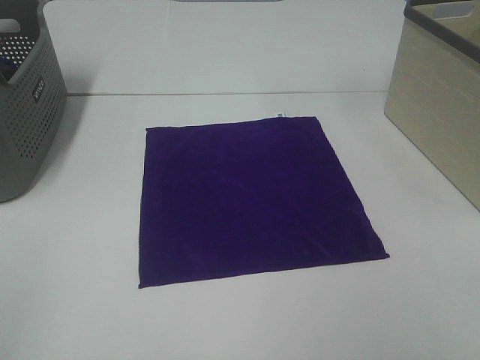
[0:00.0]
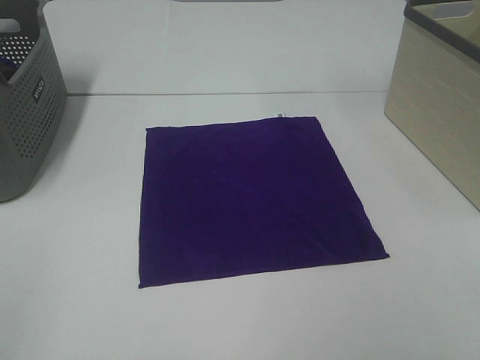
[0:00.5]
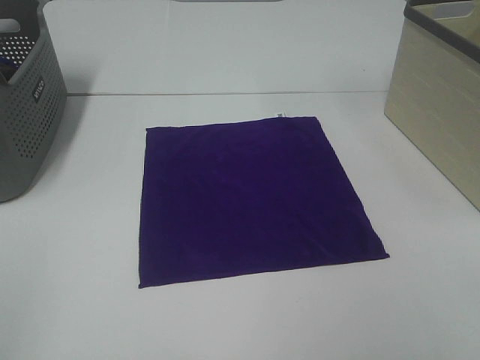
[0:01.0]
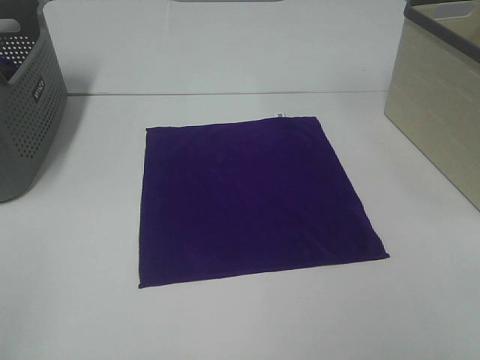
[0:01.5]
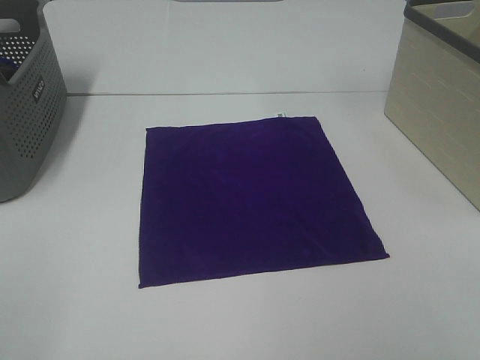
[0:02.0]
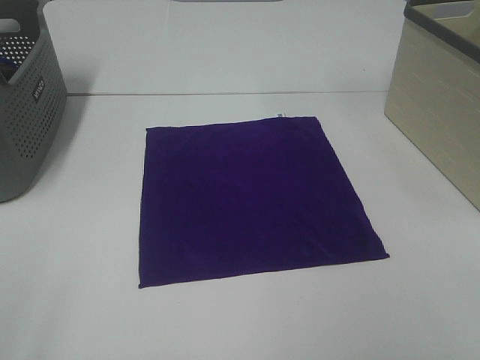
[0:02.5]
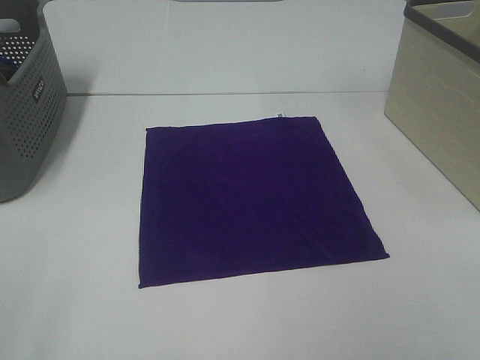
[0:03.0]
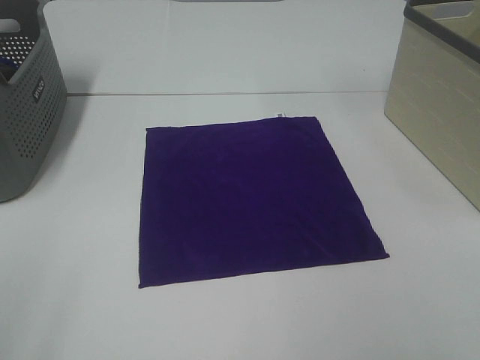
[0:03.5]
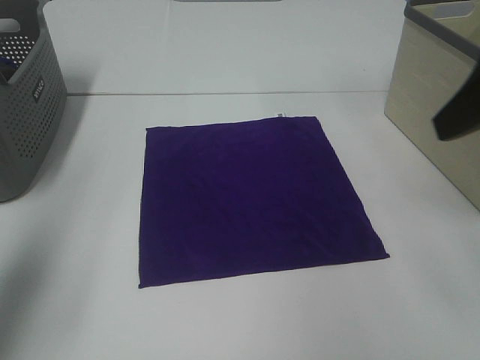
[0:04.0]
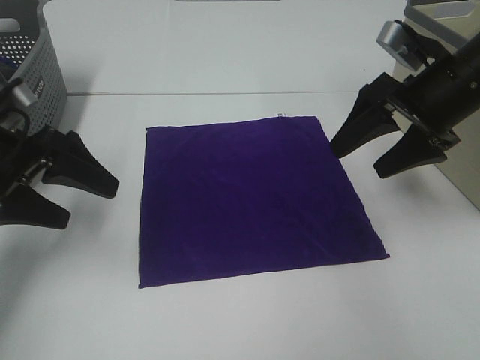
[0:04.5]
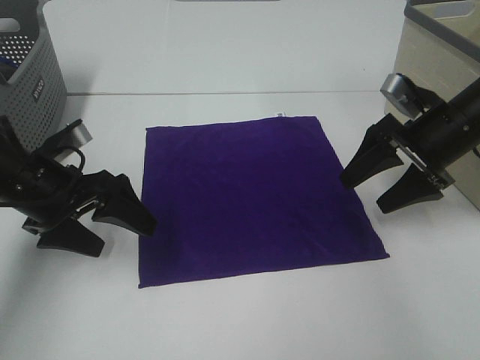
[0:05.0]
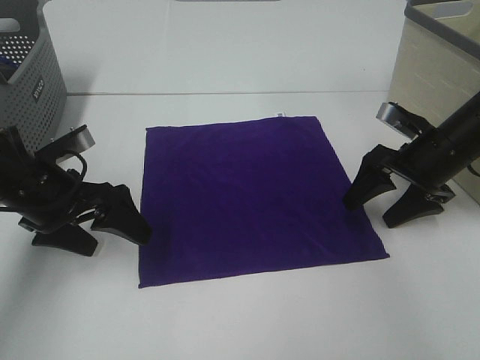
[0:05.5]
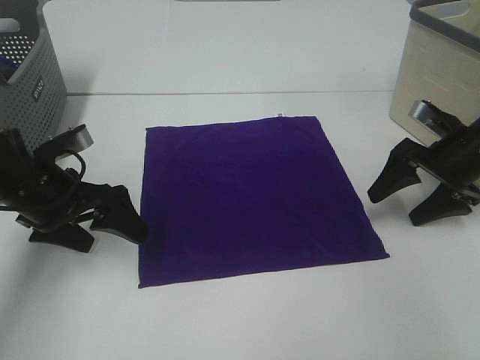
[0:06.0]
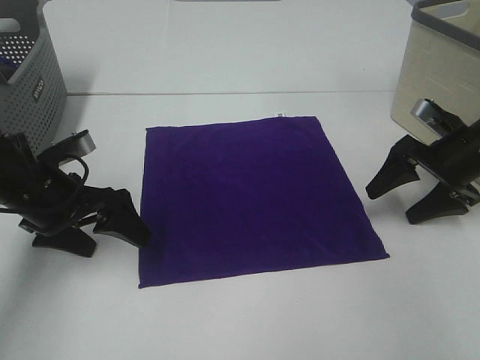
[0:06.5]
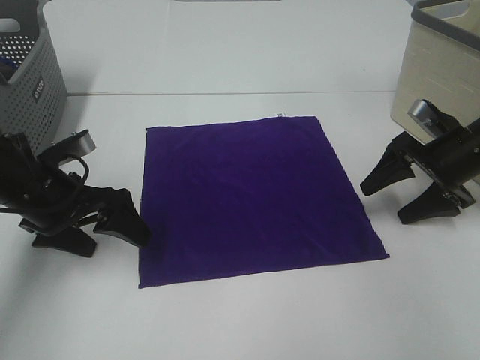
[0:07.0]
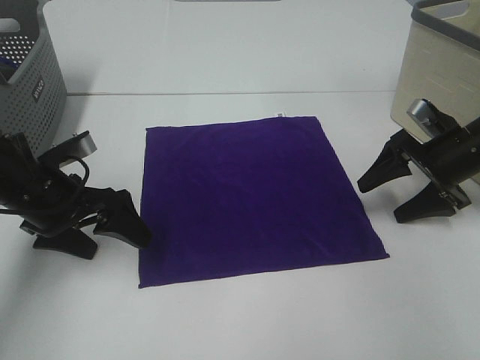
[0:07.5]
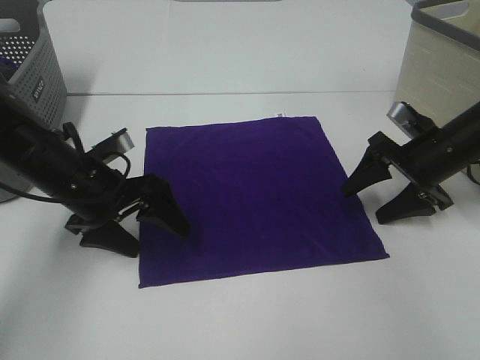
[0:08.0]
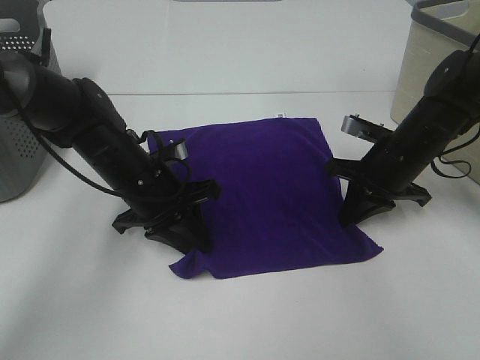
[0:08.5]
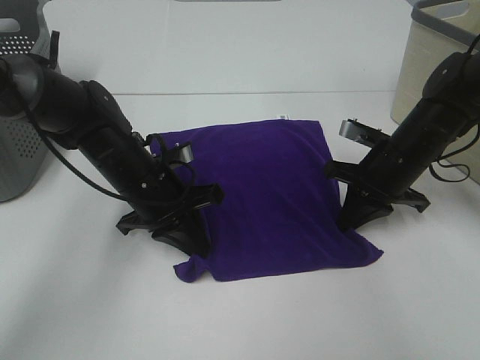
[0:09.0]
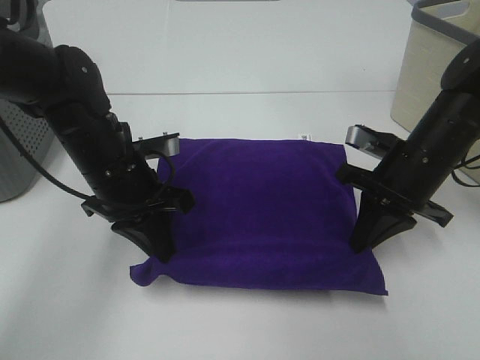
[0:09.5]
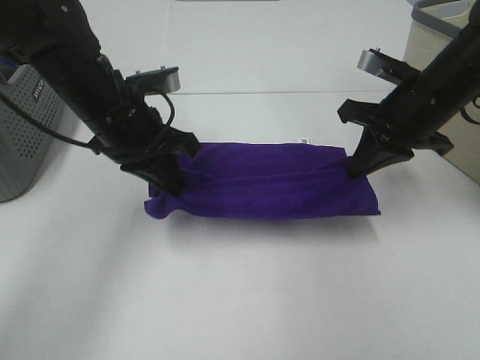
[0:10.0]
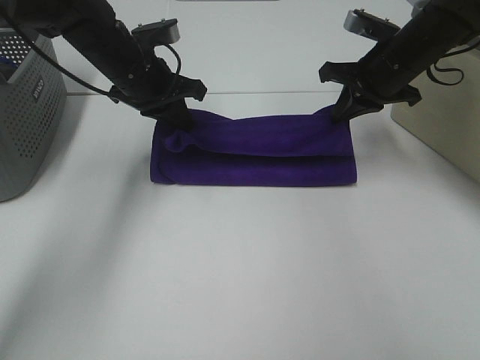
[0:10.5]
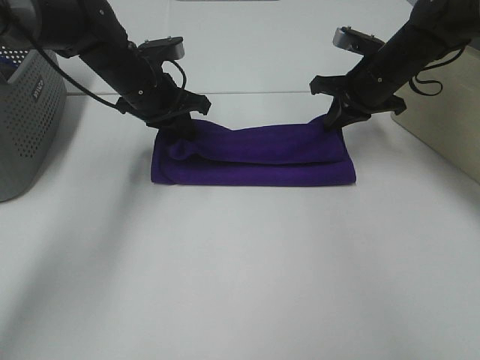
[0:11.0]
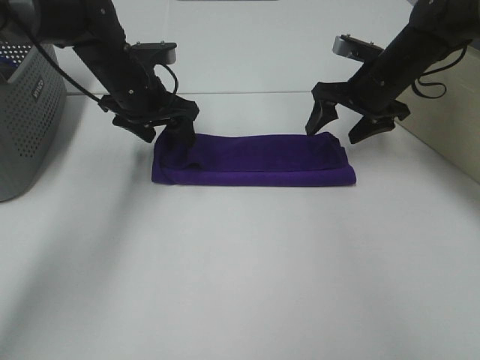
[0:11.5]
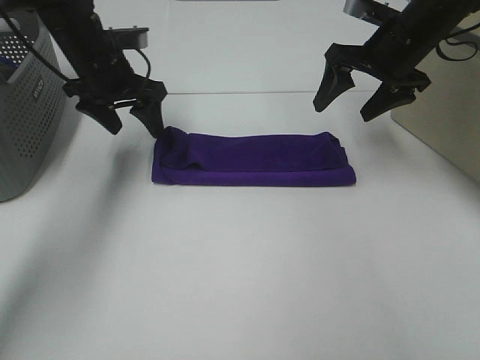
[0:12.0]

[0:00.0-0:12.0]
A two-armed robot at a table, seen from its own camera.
Task of the whole recording: Fold towels.
Step, 0:00.0 to 0:08.5: Left hand: grab the bottom left corner of purple towel.
Step, 0:00.0 to 0:08.5: Right hand: grab the bottom right corner of purple towel.
Step, 0:09.0 to 0:11.0: Left hand: fold the purple towel up.
Step, 0:09.0 to 0:11.0: Right hand: fold the purple towel up.
0:02.0 to 0:04.0: Both grippers travel together forward, about 20 cm.
0:04.0 to 0:06.0: The right gripper moves downward and forward, about 25 cm. Meanwhile the left gripper is displaced downward, forward and to the right by approximately 20 cm.
0:06.0 to 0:08.0: The left gripper ends up approximately 5 cm from where it was.
0:08.0 to 0:10.0: The right gripper shifts approximately 10 cm upward and to the left, and closes up, while the left gripper shifts some 10 cm upward and to the right, and closes its fingers.
0:10.0 to 0:12.0: The left gripper travels forward and to the left by about 15 cm, and opens its fingers, while the right gripper shifts some 10 cm forward, and opens.

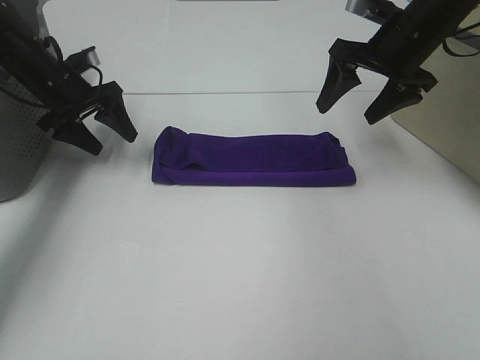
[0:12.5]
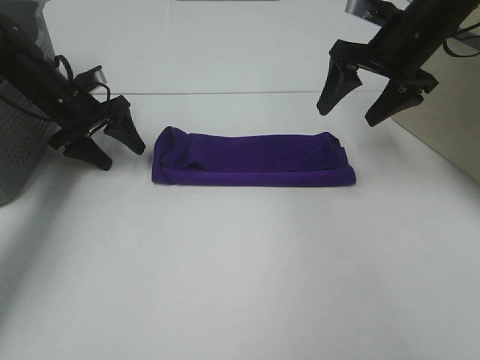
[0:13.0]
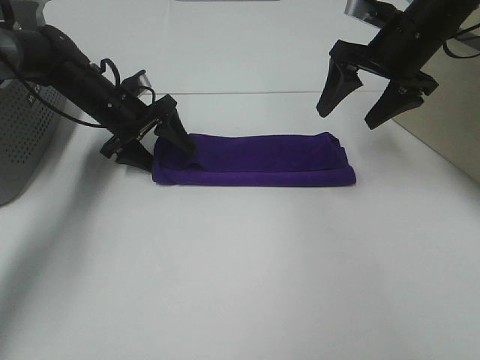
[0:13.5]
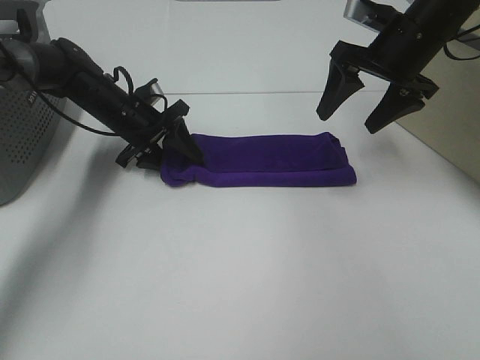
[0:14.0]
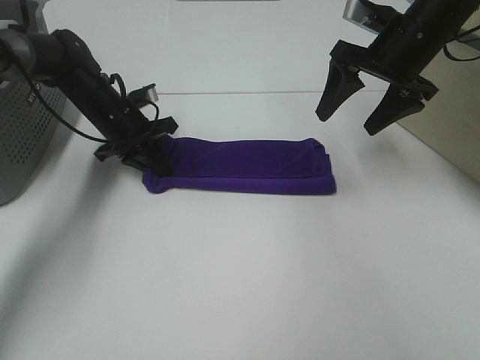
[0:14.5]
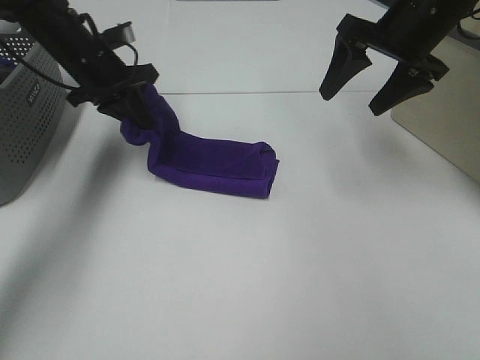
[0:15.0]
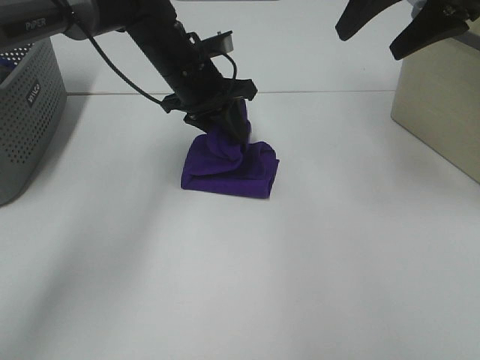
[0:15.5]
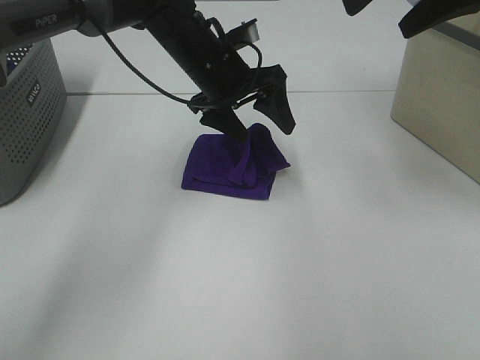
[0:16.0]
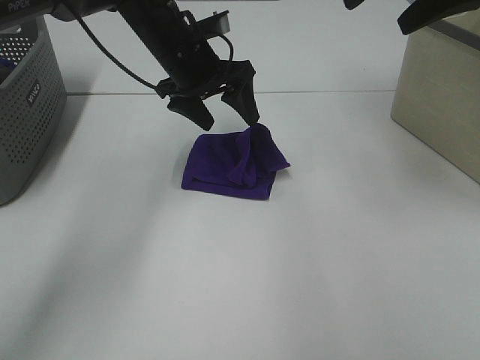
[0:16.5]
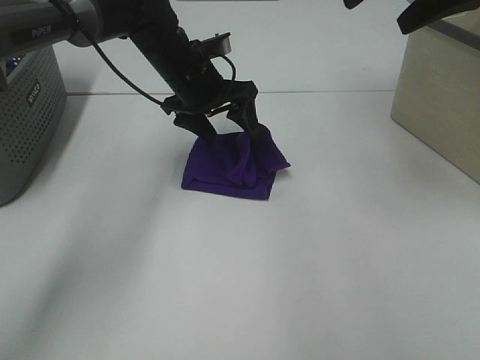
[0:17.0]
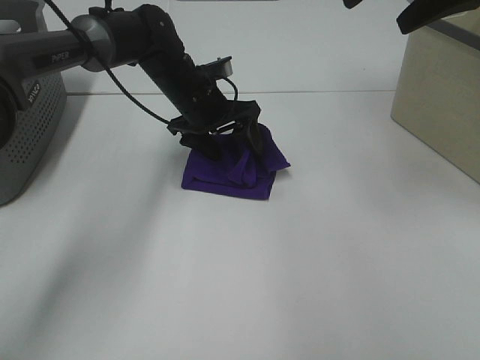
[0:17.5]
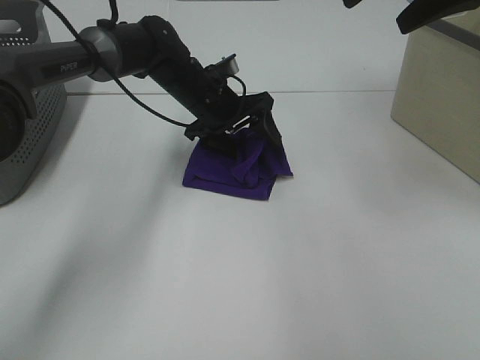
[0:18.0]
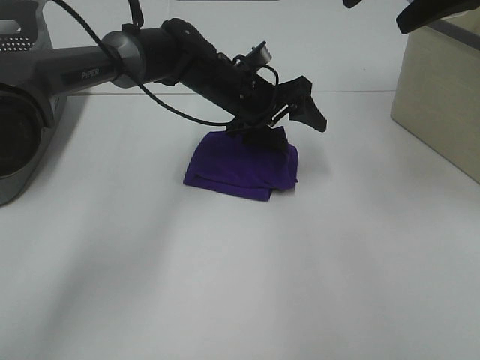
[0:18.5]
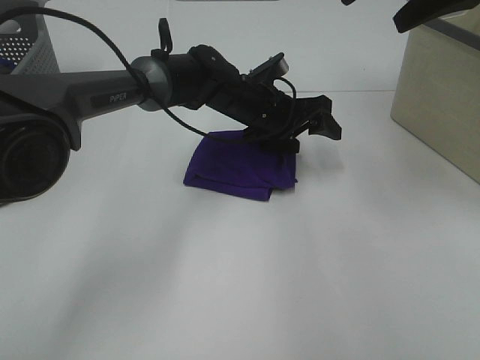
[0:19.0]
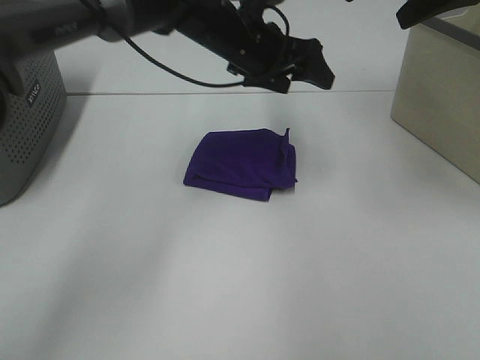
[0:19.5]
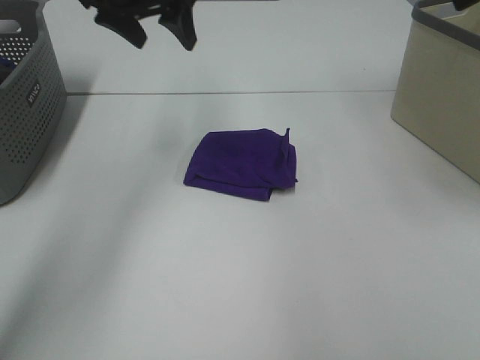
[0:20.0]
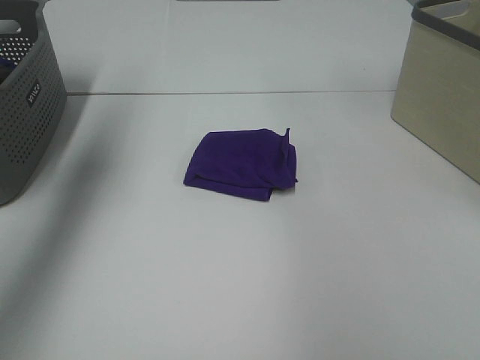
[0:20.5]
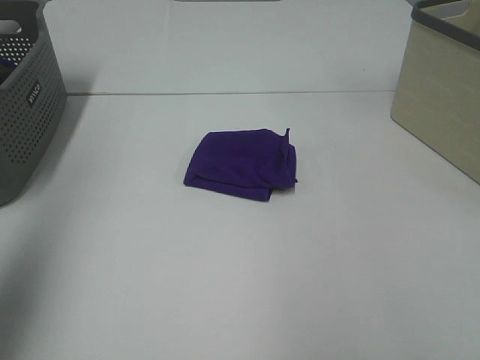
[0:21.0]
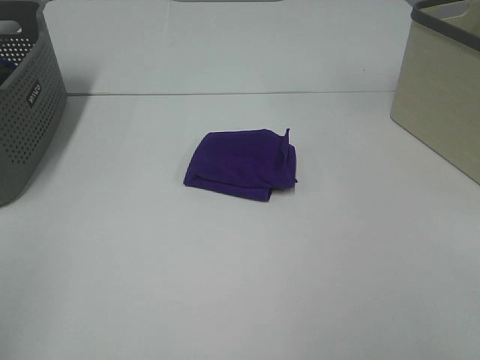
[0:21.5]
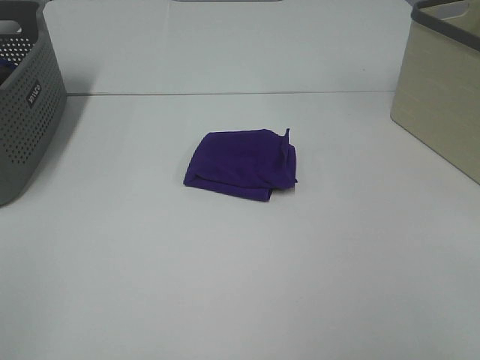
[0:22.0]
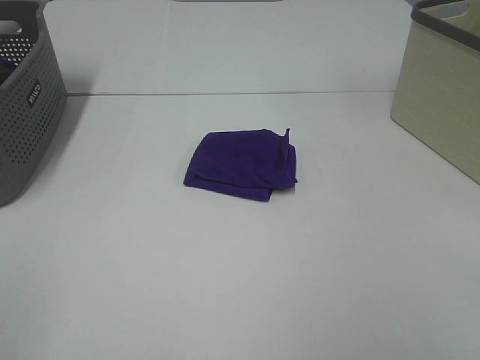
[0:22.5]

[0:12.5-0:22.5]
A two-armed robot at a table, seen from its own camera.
Task of the whole recording: Fold towels.
Step, 0:12.5 to 0:15.5: Left hand: fold the purple towel from left to right.
Step, 0:16.0 to 0:19.0: Left hand: adjust the purple towel.
0:12.5 to 0:14.5: The left gripper travels to the right by roughly 5 cm, and closes its fingers.
0:14.5 to 0:16.5: The right gripper travels upward and backward by roughly 15 cm. Meanwhile the left gripper travels to the right and upward by about 15 cm, and opens up.
0:16.5 to 0:18.5: The left gripper is displaced to the right and downward by about 10 cm.
0:18.5 to 0:20.5: The right gripper shifts roughly 15 cm to the right, backward and upward, while the left gripper goes approximately 40 cm to the left and upward.
0:20.5 to 0:22.5: The left gripper shifts approximately 35 cm backward.
